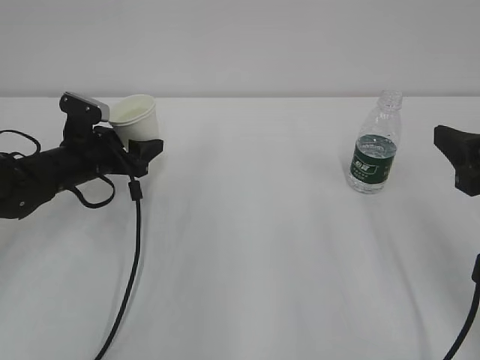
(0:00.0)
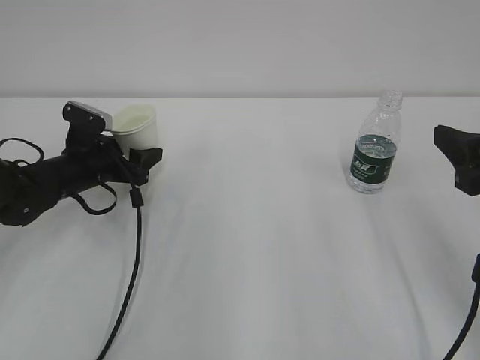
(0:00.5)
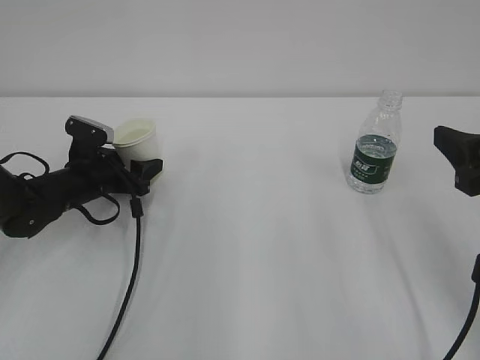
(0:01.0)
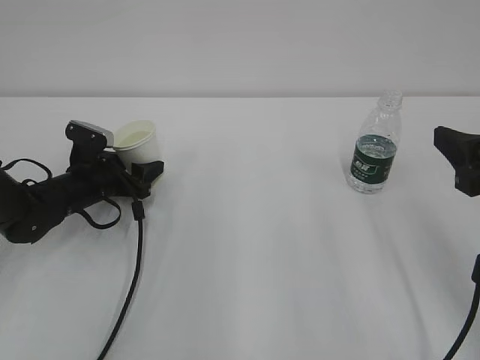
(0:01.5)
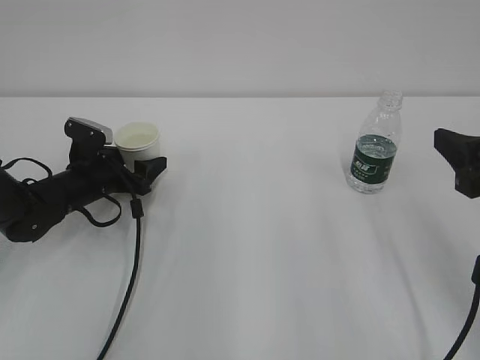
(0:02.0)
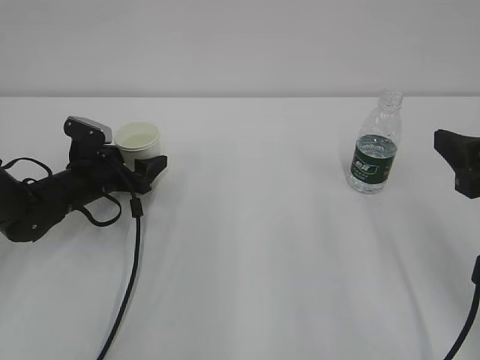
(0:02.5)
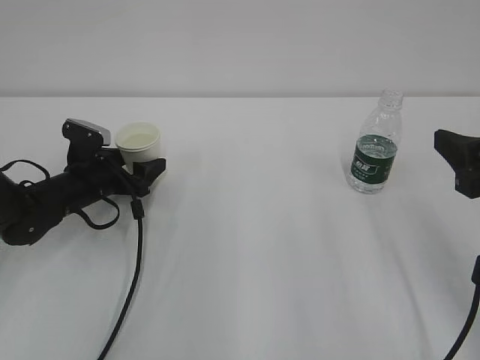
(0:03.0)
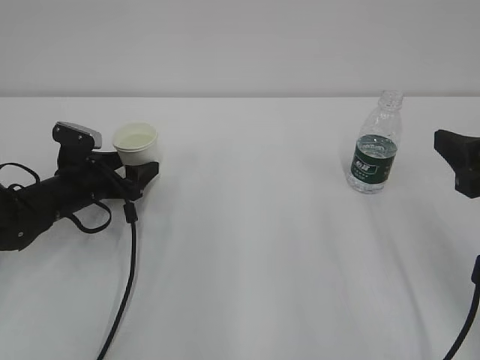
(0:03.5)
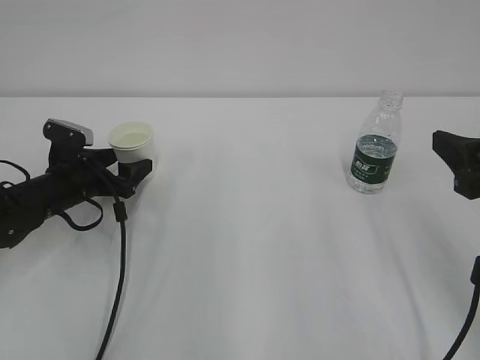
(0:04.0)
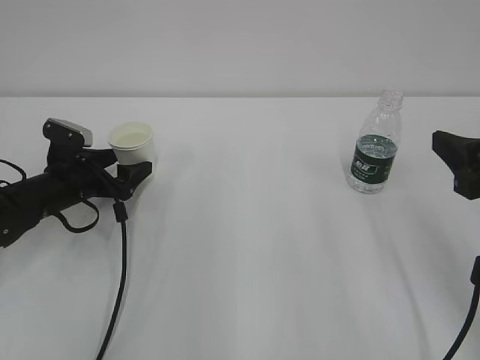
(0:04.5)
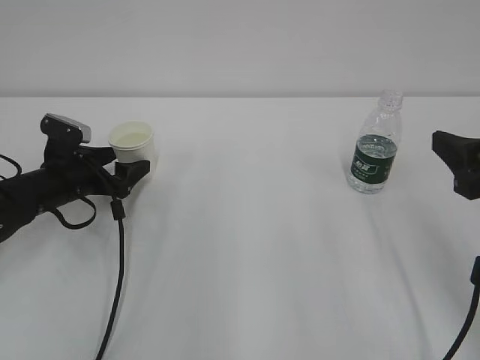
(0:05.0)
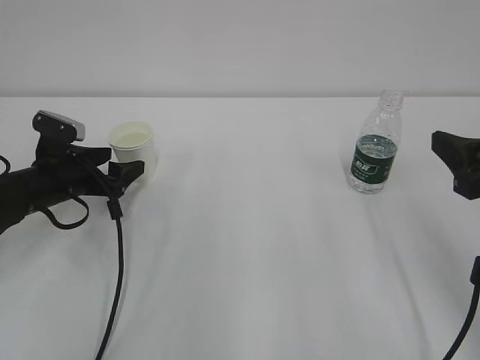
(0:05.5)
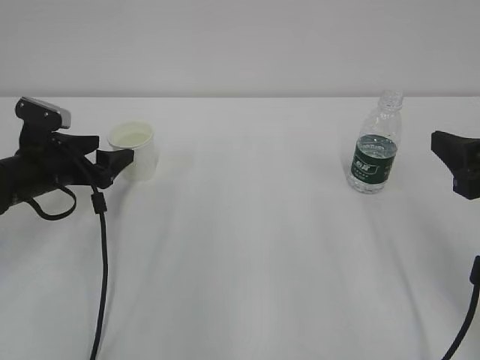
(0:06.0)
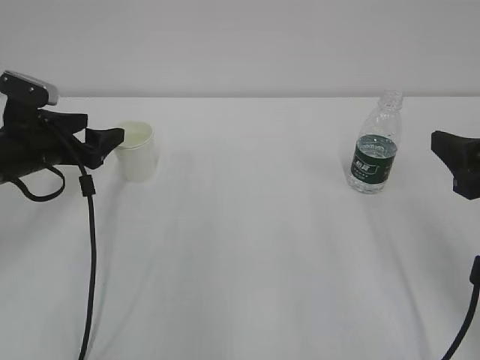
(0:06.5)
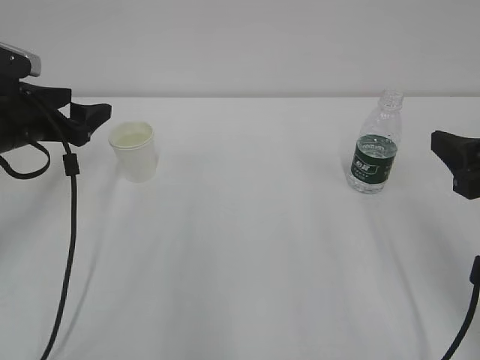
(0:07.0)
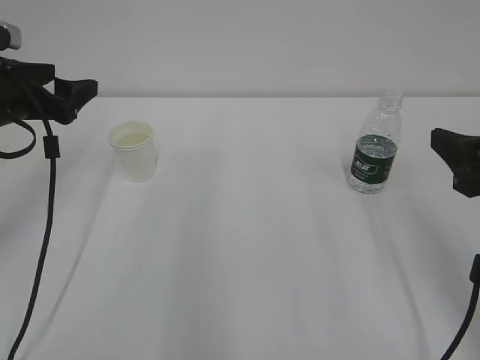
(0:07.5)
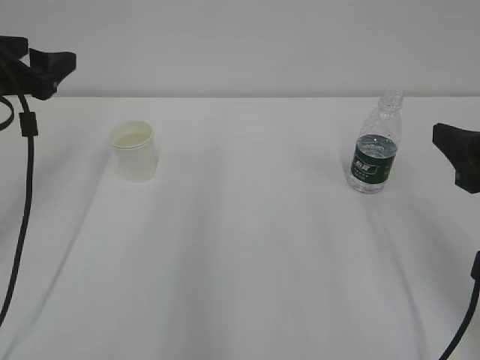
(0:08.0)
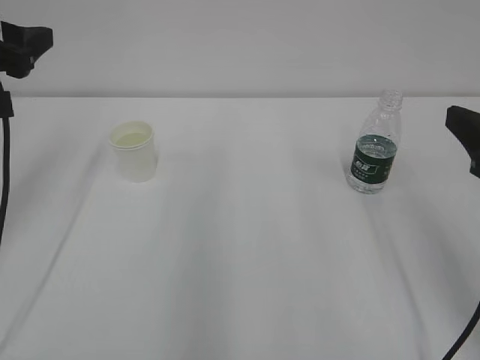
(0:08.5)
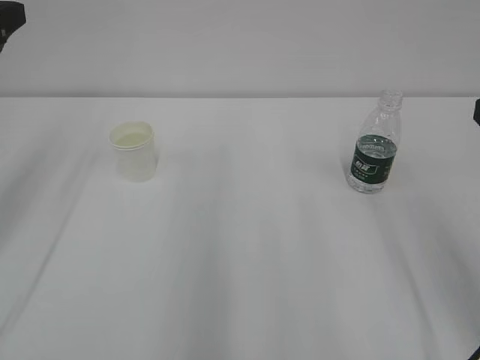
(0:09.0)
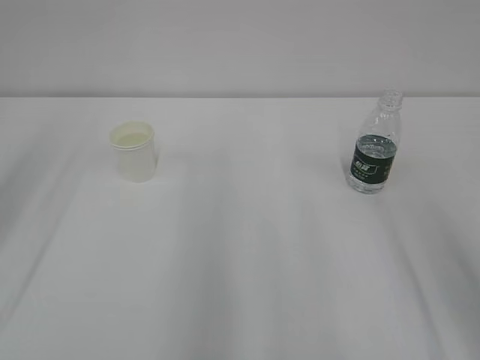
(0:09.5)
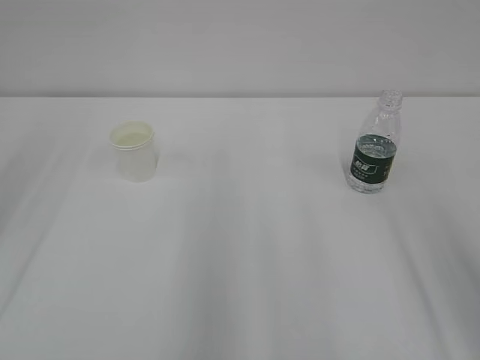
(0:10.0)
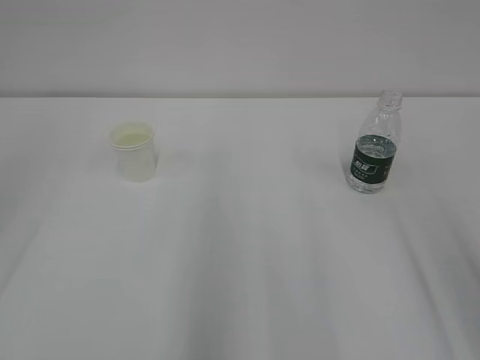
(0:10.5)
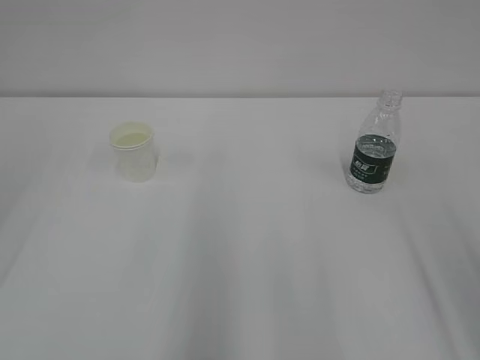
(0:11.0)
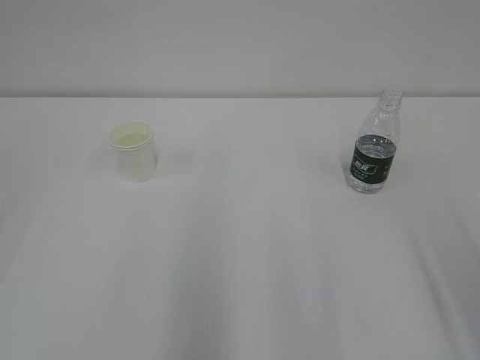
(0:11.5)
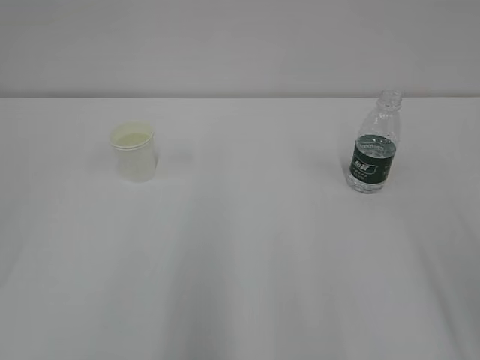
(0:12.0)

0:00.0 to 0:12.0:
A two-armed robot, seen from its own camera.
0:00.0 to 0:02.0: The left gripper opens its fingers.
0:02.0 to 0:04.0: There are only small adjustments of the grippers.
0:04.0 to 0:06.0: The left gripper ends up roughly 5 cm from where it was.
0:06.0 to 0:08.0: The left gripper travels upward by approximately 15 cm.
0:08.0 to 0:10.0: The left gripper is displaced upward and backward by about 15 cm. Meanwhile the right gripper travels backward and upward by approximately 10 cm.
